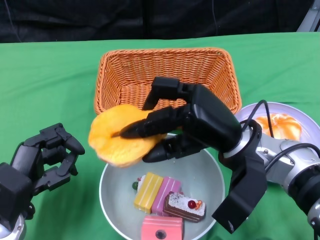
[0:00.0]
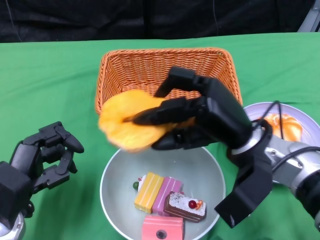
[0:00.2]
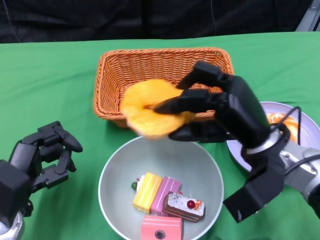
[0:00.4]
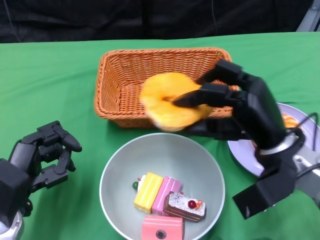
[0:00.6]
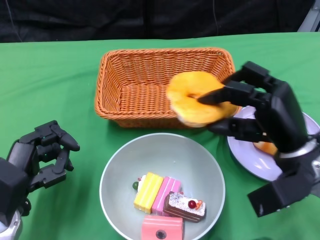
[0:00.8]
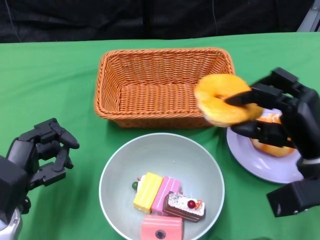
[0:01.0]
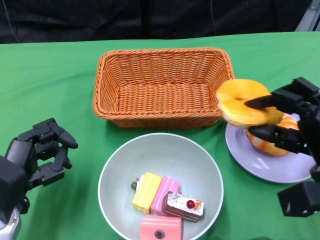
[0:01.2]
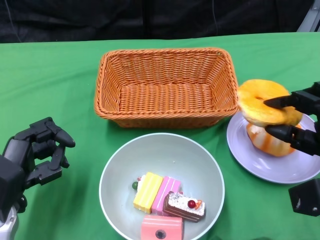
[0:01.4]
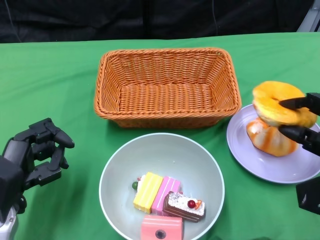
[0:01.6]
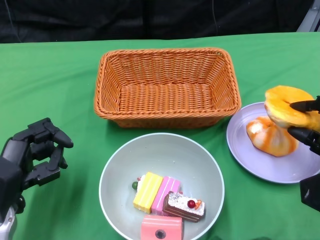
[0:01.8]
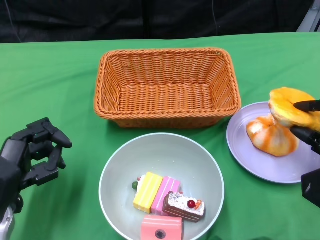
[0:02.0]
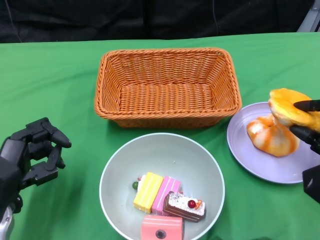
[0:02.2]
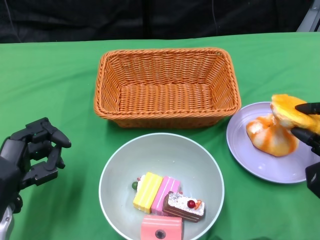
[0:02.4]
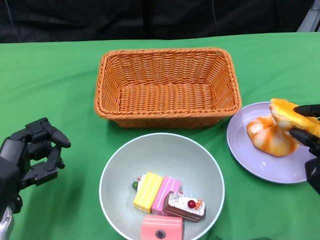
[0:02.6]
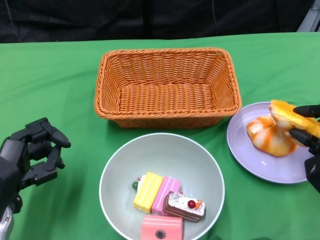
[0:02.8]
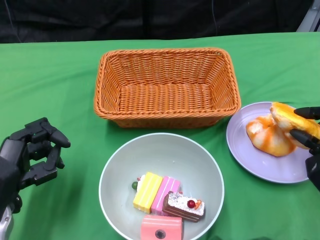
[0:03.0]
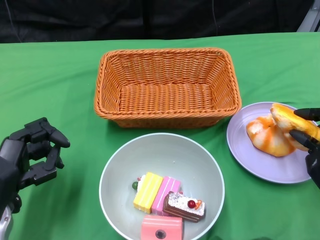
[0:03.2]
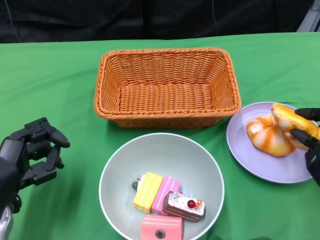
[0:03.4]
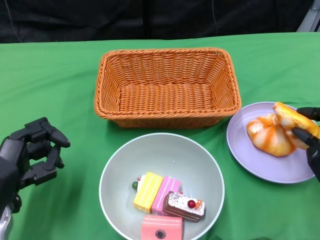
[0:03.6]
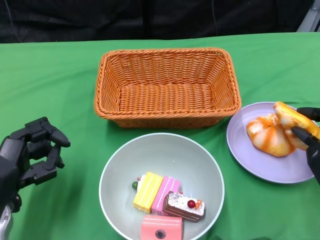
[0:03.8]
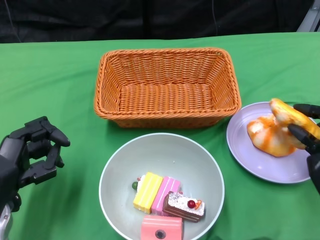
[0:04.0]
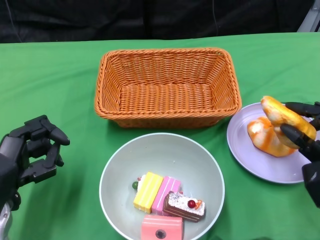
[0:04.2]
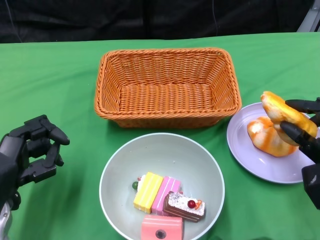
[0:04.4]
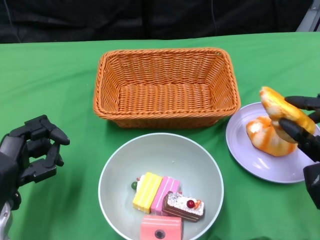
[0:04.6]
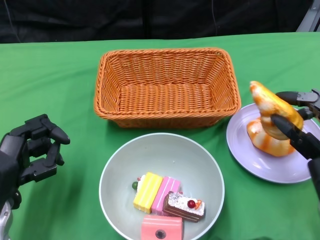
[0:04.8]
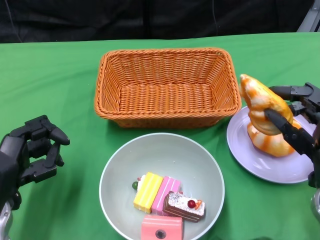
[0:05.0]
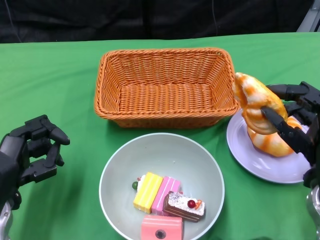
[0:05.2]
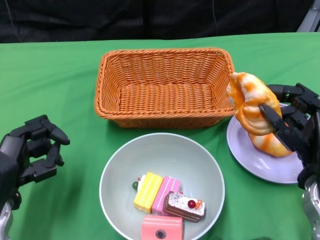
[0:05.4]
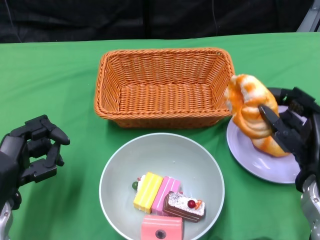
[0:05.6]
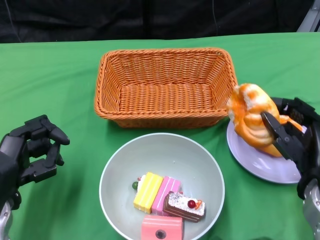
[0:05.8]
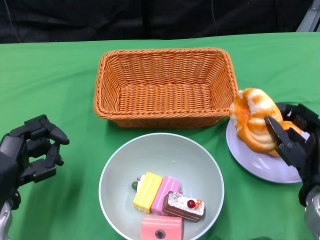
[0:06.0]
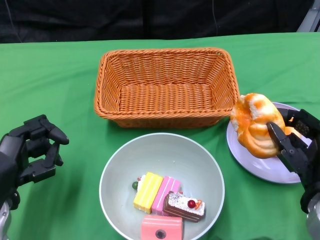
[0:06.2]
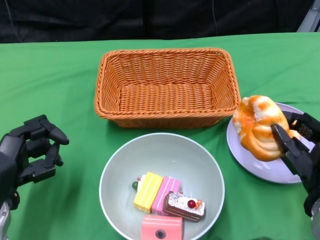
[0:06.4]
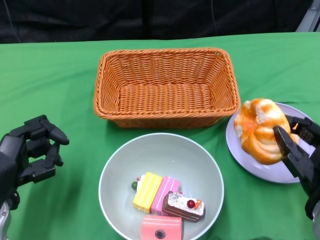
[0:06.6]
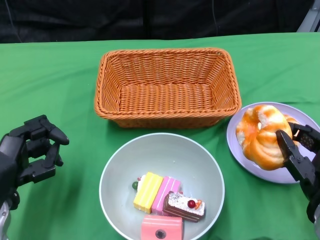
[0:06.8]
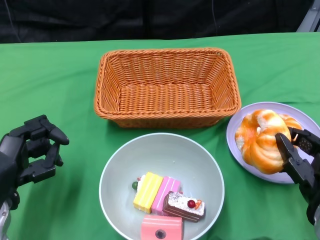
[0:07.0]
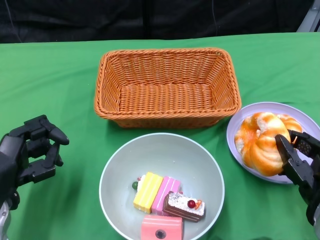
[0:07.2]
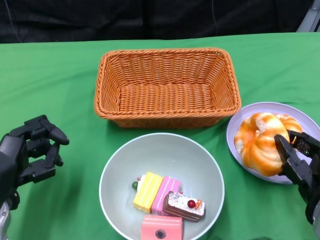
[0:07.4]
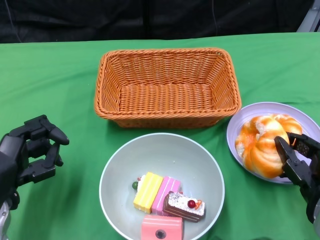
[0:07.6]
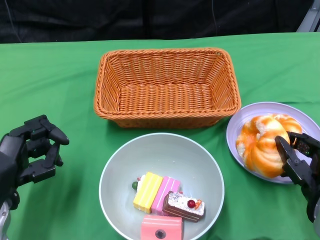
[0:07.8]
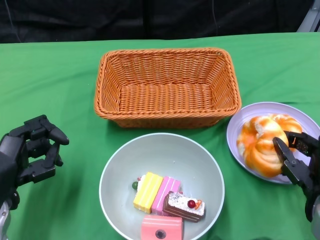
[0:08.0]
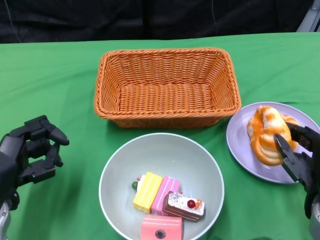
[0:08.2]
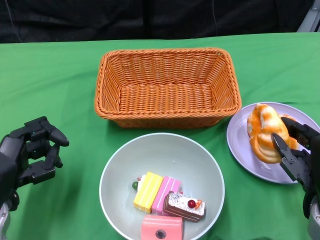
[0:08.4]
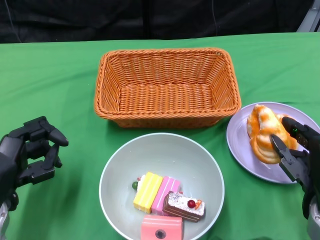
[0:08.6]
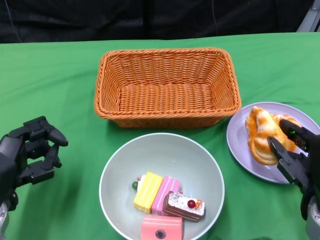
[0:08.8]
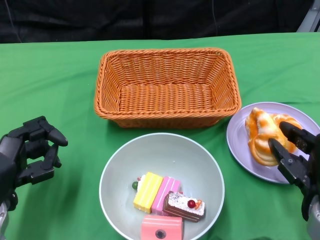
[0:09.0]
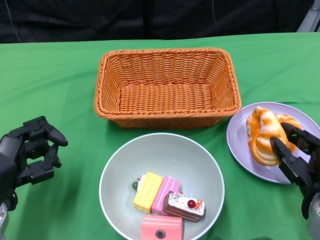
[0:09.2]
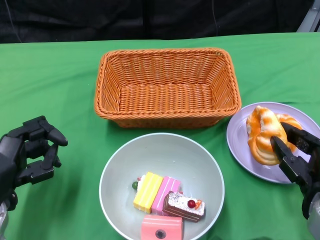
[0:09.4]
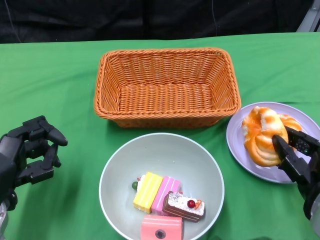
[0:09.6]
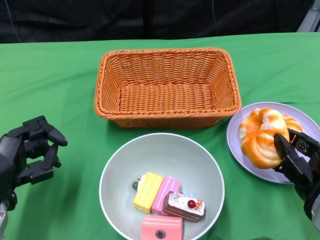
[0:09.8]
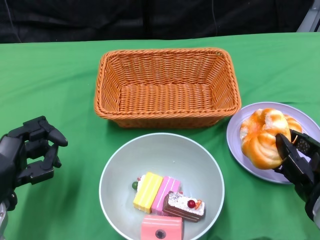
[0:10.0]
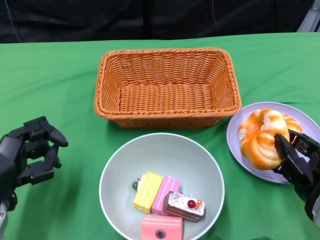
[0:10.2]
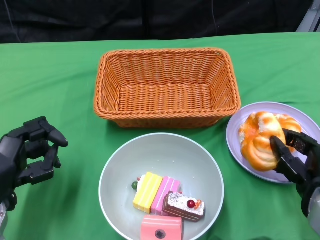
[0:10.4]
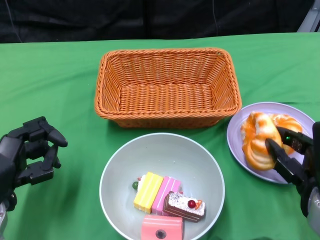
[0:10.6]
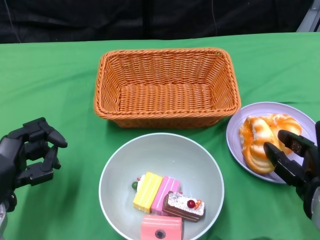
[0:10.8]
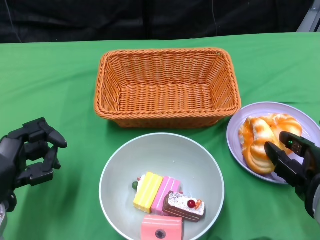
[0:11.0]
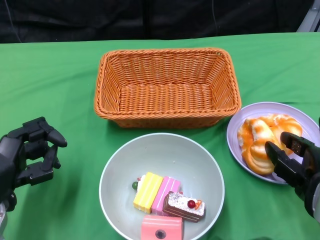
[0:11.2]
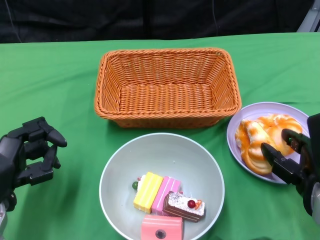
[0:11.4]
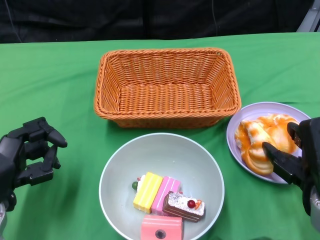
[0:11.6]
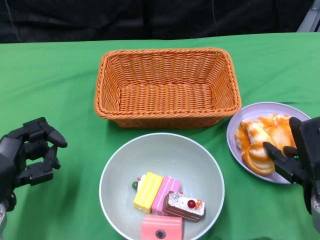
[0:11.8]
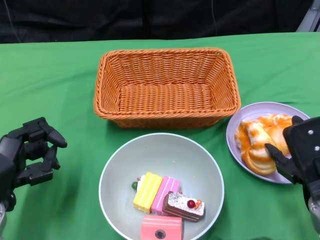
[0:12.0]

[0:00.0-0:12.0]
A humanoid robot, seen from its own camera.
0:00.0 to 0:01.6: The right hand moves to the right and downward, some 15 cm.
0:03.0 to 0:04.4: The hands move only a little.
0:06.0 to 0:09.0: There are only small adjustments of the hands.
0:09.0 to 0:10.4: The hands stay close to where they were, moving slightly.

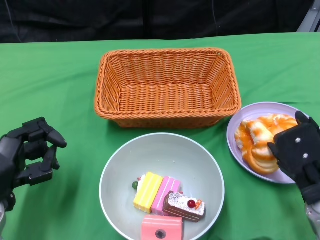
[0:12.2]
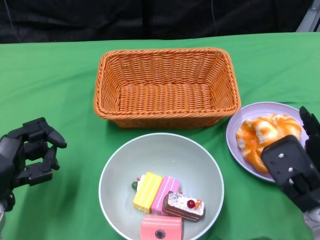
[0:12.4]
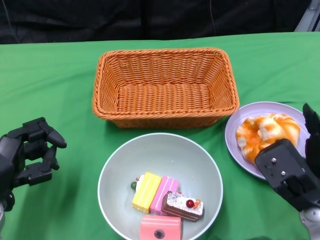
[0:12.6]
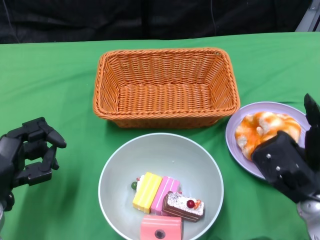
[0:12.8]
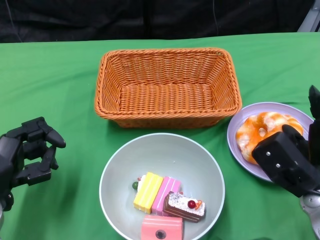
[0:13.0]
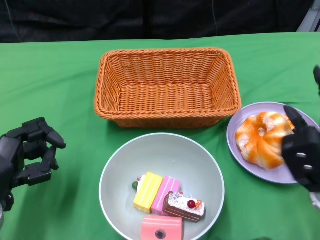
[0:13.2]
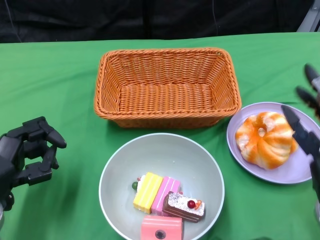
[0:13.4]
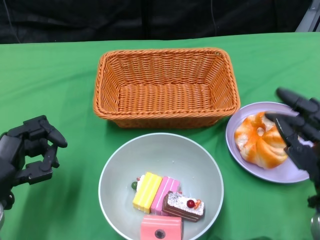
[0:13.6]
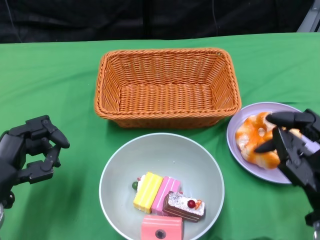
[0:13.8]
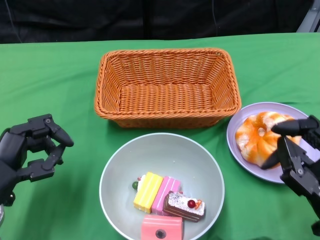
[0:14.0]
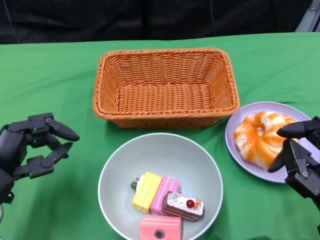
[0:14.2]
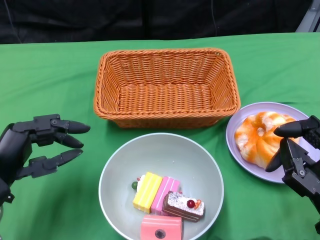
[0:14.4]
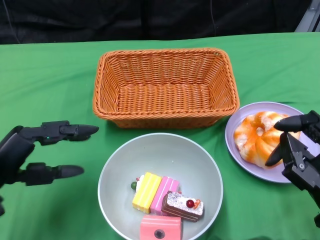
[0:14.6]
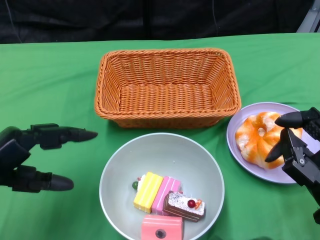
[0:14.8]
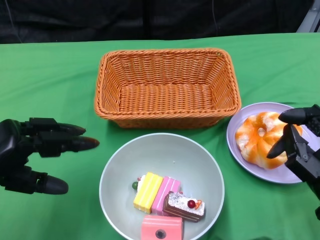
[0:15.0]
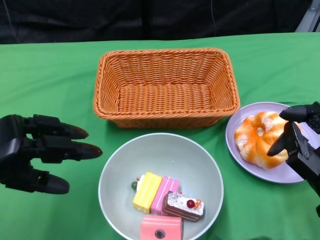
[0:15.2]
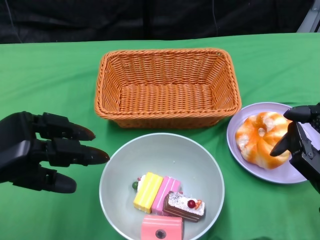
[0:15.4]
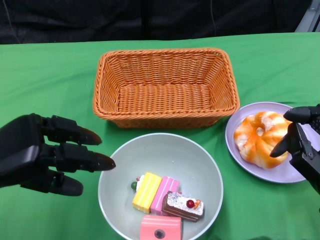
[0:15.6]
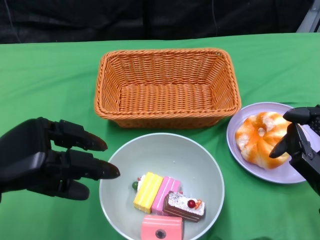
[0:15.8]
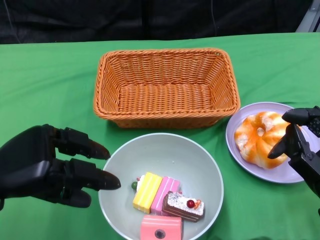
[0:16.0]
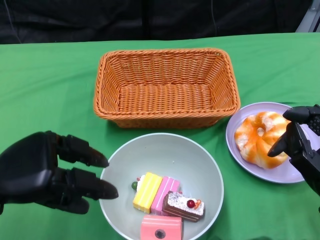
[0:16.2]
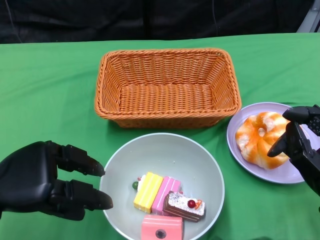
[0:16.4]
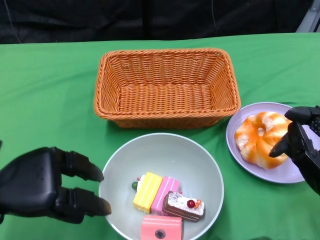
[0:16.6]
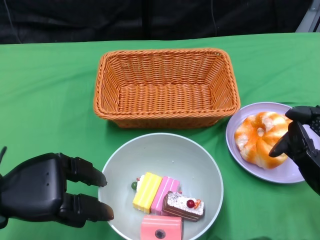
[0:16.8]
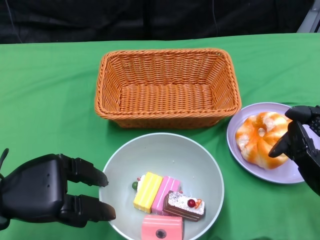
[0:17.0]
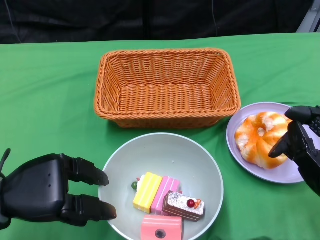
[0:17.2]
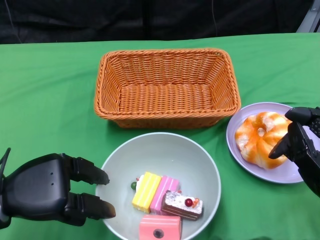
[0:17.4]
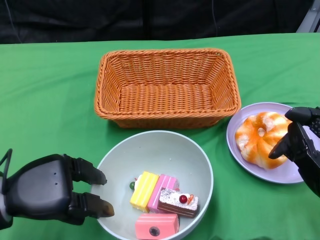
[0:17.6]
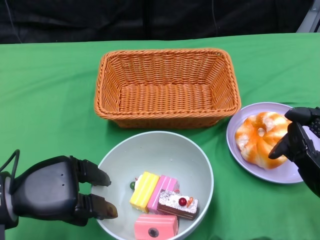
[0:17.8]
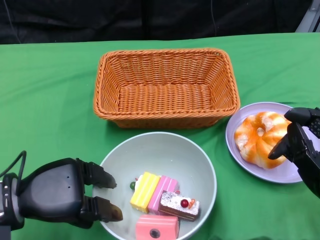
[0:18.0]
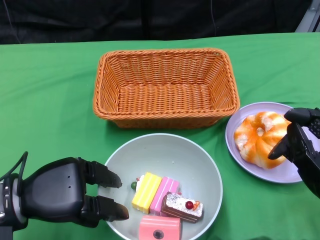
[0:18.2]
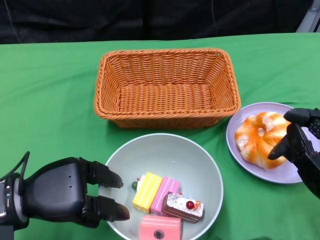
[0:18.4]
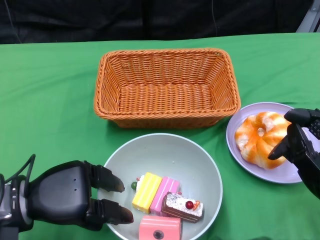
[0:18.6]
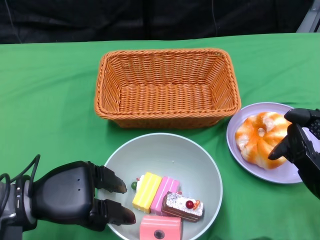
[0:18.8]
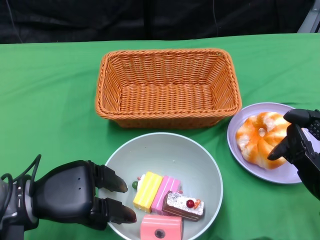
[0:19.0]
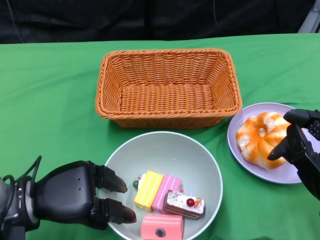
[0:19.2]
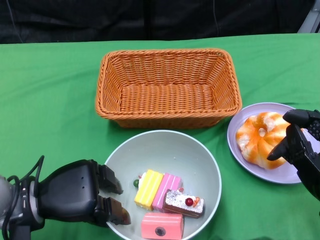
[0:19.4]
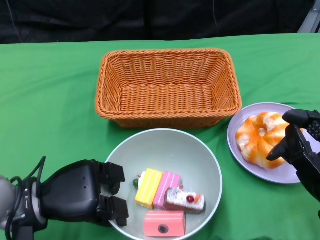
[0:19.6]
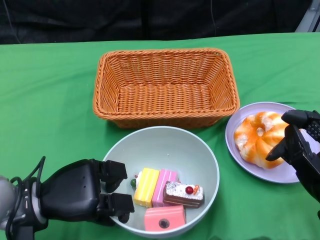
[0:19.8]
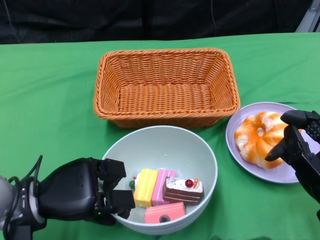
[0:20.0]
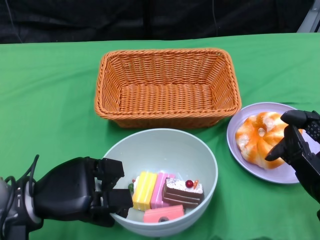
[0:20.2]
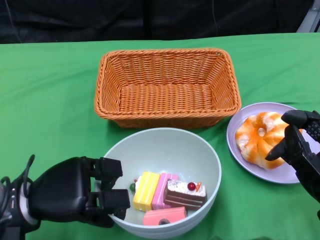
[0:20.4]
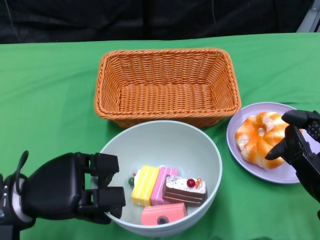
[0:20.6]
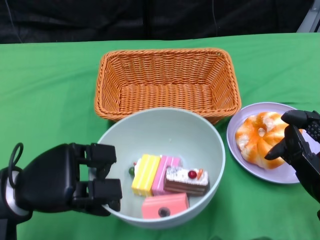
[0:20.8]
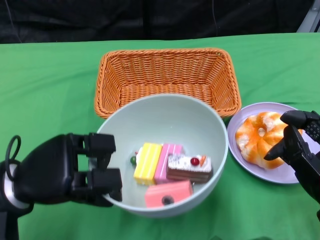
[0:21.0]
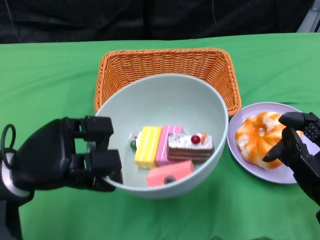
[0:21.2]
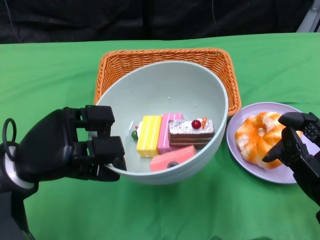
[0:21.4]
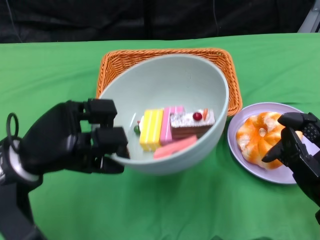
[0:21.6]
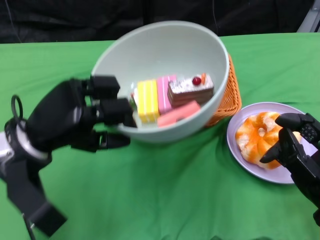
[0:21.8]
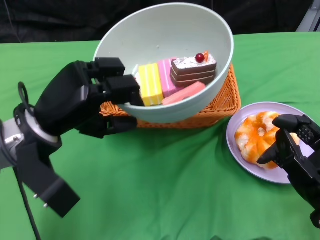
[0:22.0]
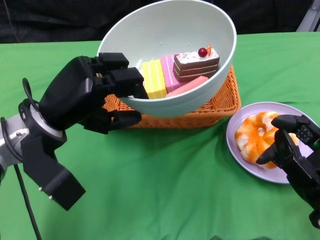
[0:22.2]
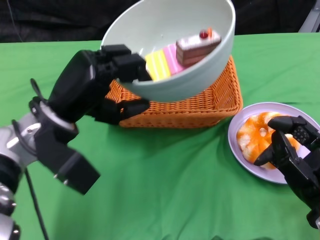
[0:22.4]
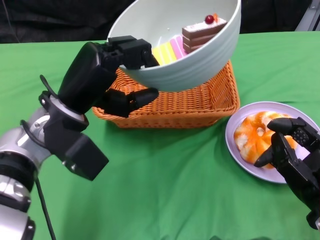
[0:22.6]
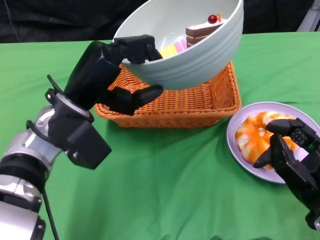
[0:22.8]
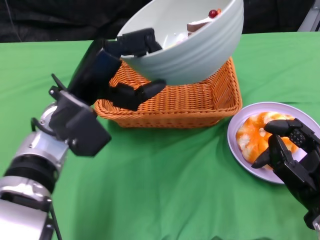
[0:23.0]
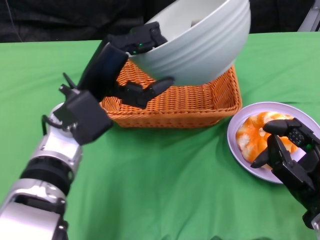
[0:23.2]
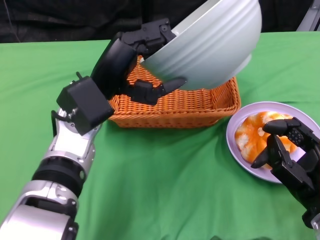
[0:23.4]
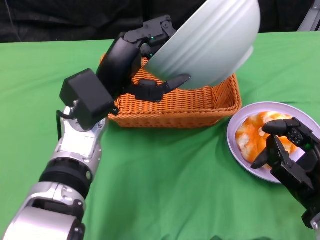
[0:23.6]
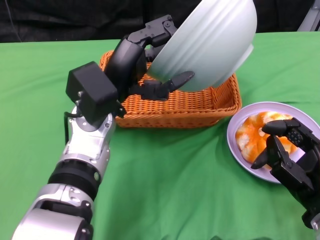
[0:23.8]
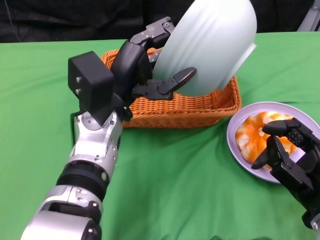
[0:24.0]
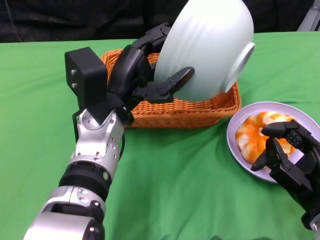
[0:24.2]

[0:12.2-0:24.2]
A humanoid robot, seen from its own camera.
Step, 0:14.0 to 0:19.6: Grasp the bowl with the left gripper.
0:13.8 to 0:15.2: The left hand moves upward, some 10 cm.
0:16.6 to 0:18.2: The hands move only a little.
0:18.2 to 0:19.8: There are only small adjustments of the hands.
0:19.8 to 0:21.2: The left hand goes some 5 cm upward.
0:21.2 to 0:22.6: The left hand heads to the right and forward, covering some 10 cm.
0:22.6 to 0:24.2: The left hand moves to the right, about 5 cm.
